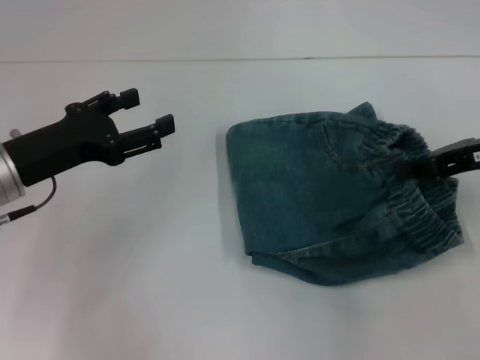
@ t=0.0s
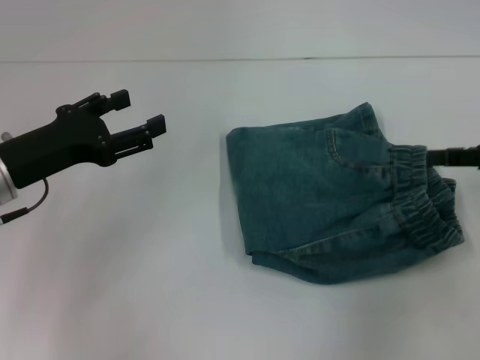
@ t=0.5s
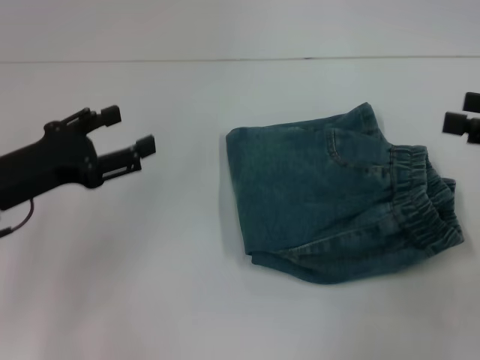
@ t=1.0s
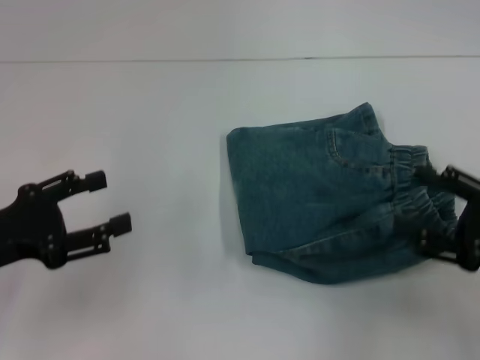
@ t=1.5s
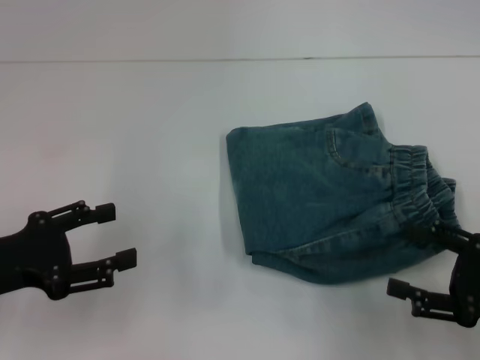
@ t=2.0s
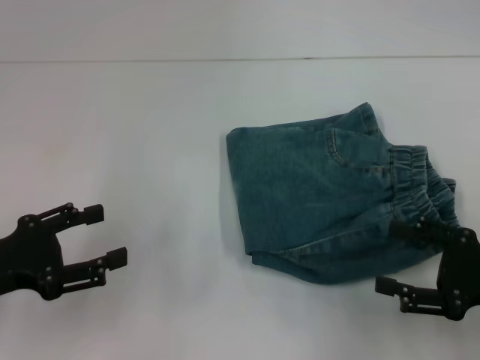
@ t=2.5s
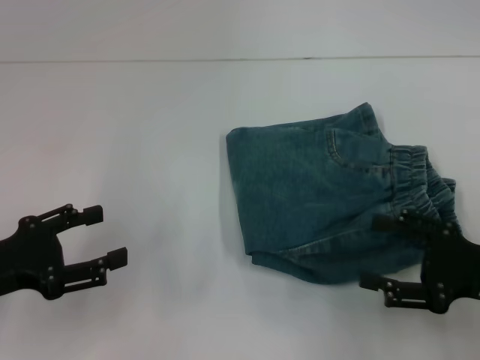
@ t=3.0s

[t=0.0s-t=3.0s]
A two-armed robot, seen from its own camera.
t=0.0s to t=1.5s: The right gripper shifts some 15 cm backward and downward, and opens its fingers, while the left gripper travels backward by about 5 cm.
t=1.5s to t=3.0s: The grippers stay close to where they were, moving slightly.

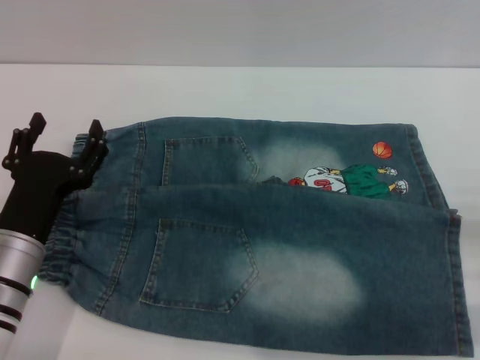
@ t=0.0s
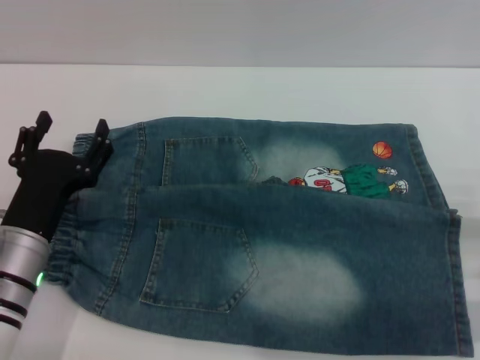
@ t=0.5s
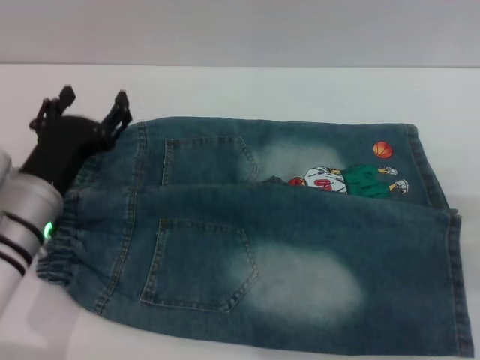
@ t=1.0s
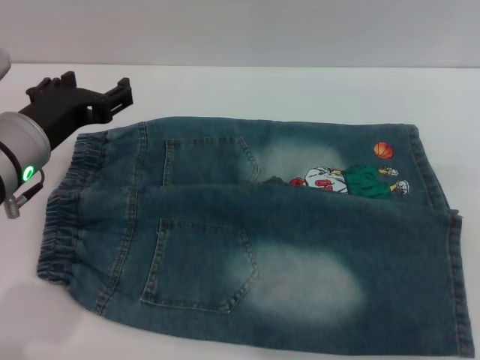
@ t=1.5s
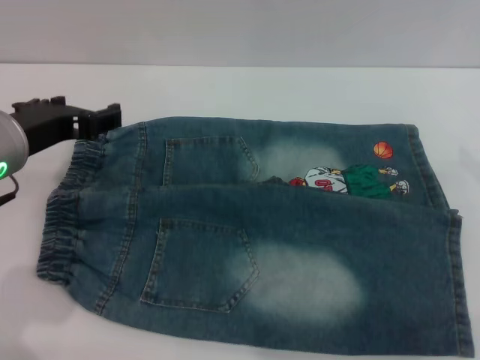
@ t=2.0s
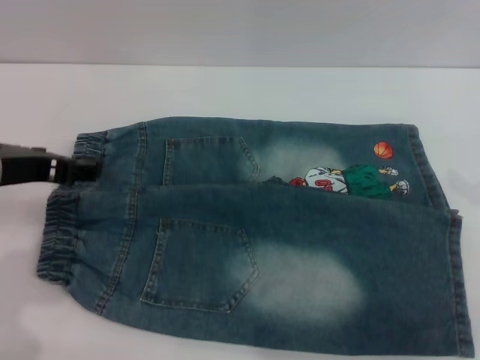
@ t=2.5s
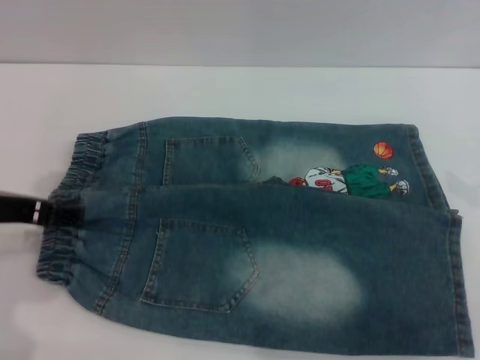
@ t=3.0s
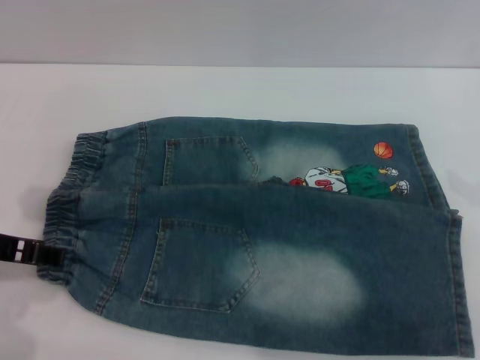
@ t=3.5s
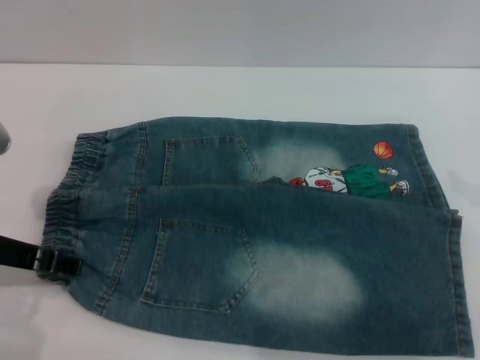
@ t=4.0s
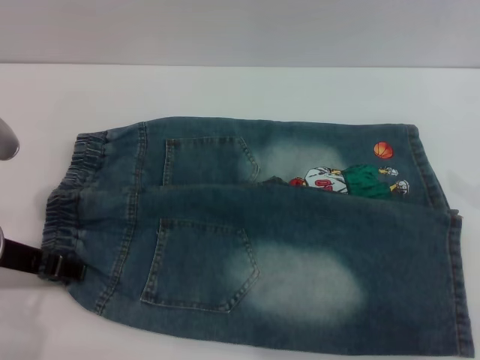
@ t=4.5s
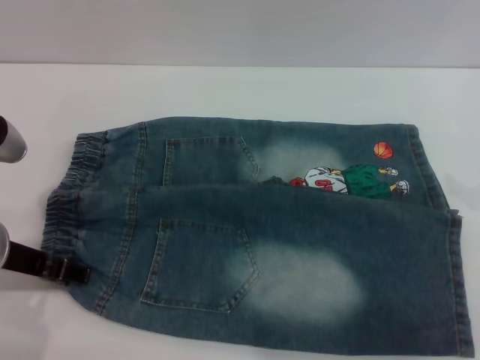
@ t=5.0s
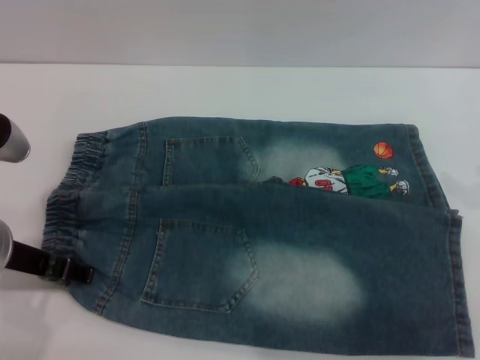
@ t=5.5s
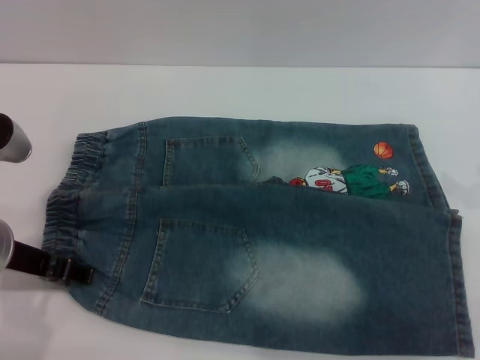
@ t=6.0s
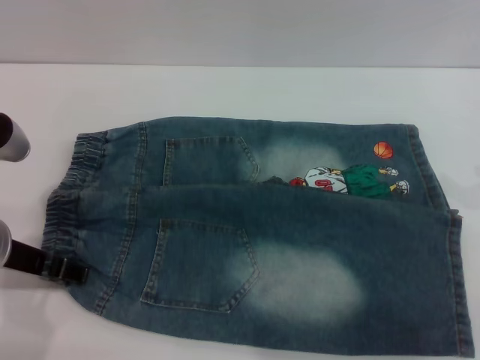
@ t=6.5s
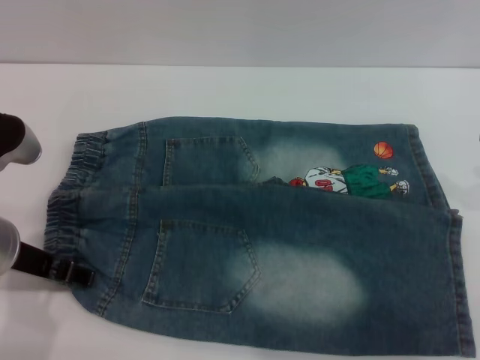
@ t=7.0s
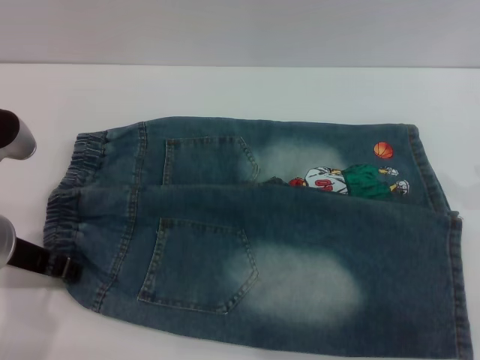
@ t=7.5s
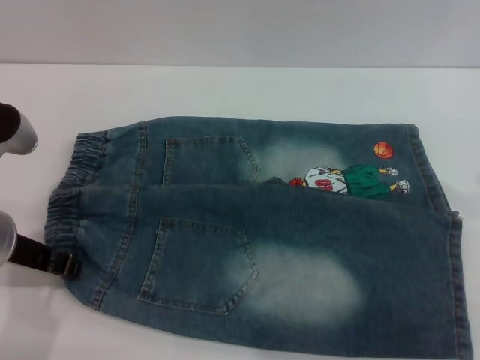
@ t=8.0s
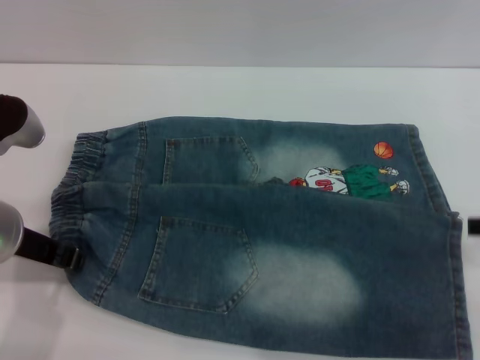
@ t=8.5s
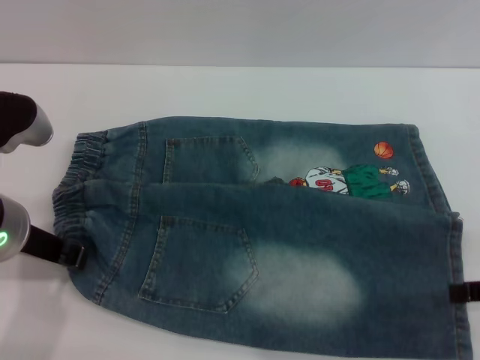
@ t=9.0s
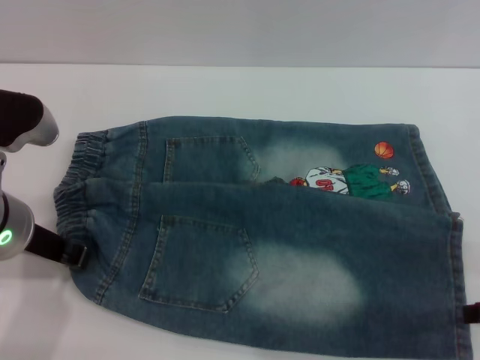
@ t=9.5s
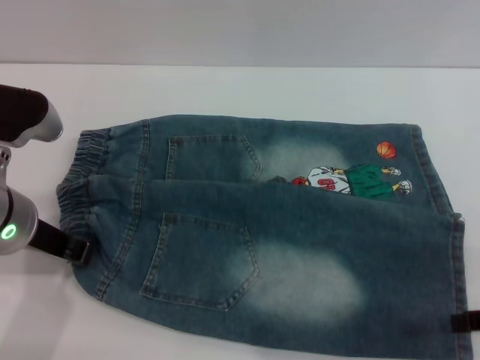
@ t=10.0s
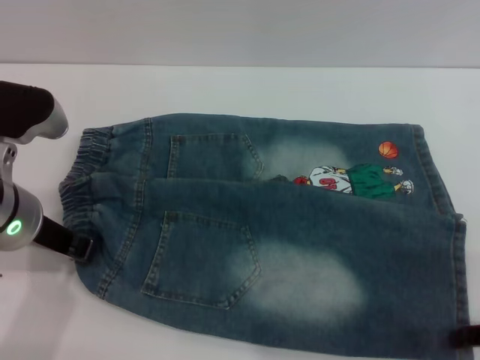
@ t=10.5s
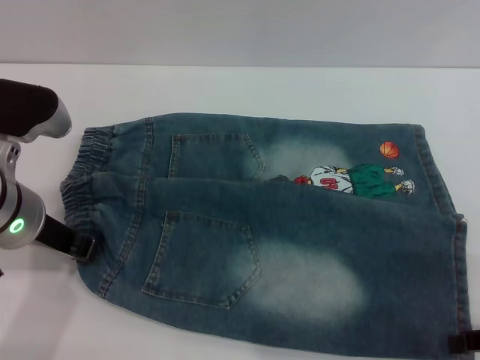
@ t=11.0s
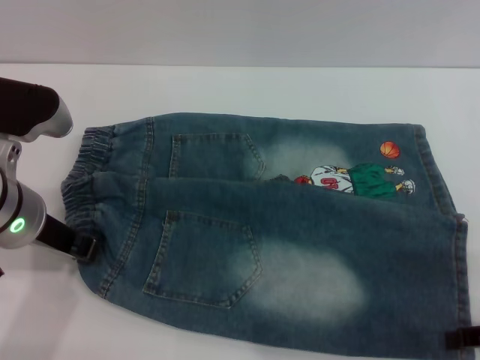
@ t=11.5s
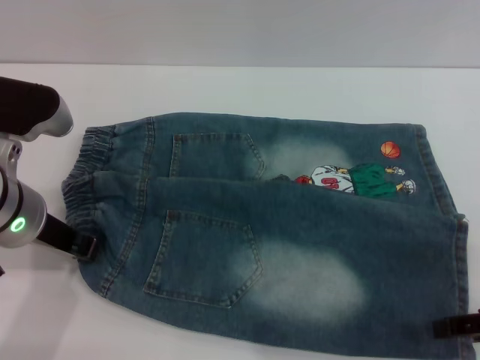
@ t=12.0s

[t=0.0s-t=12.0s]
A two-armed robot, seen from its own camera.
t=0.0s to t=2.0s: The left gripper moves upward, roughly 15 cm.
t=4.0s to t=6.0s: Both grippers stay put.
t=6.0s to t=8.0s: The left gripper closes.
t=8.0s to t=10.0s: The right gripper heads downward and backward, covering roughly 10 cm.
t=10.0s to t=12.0s: There are only small adjustments of the grippers.

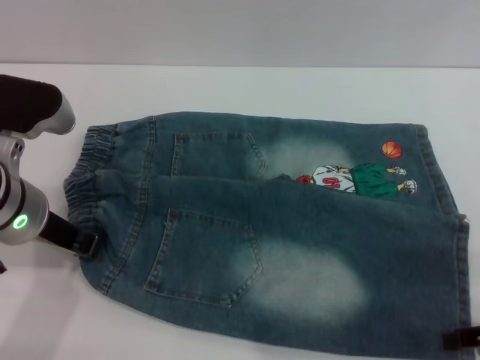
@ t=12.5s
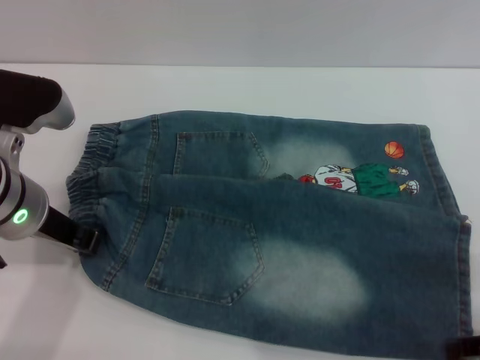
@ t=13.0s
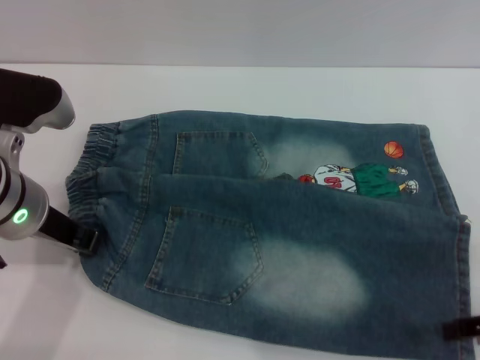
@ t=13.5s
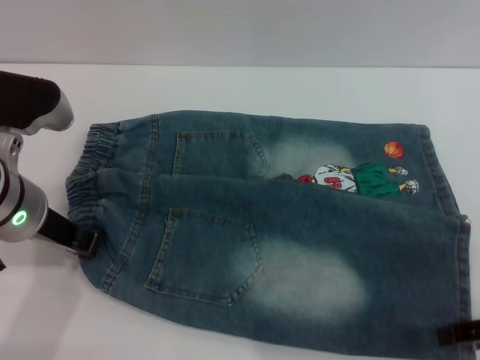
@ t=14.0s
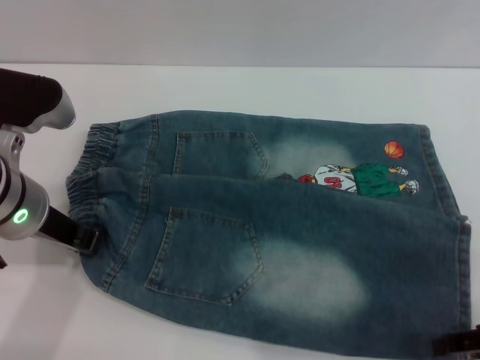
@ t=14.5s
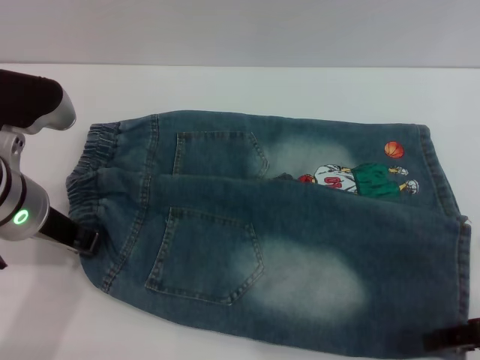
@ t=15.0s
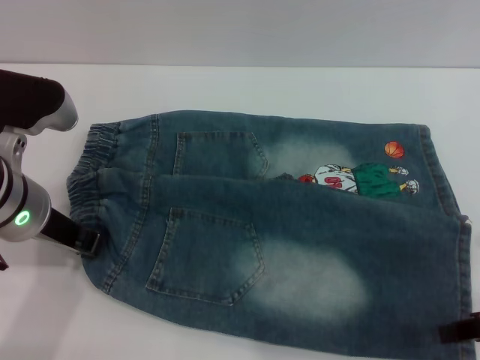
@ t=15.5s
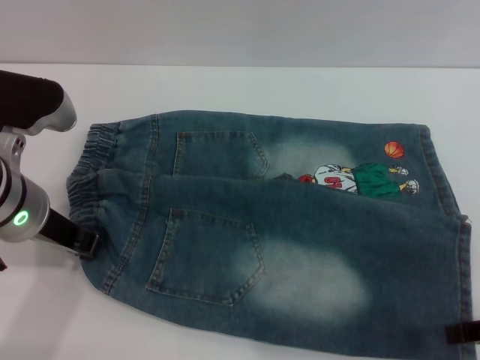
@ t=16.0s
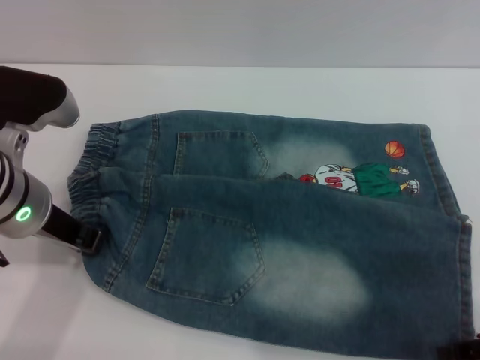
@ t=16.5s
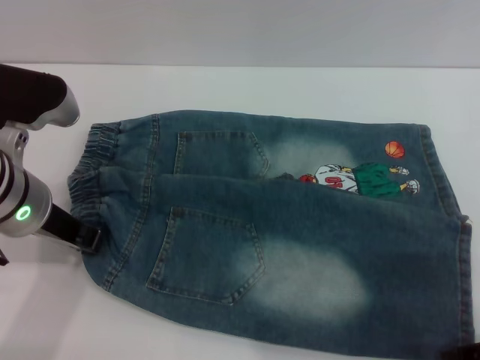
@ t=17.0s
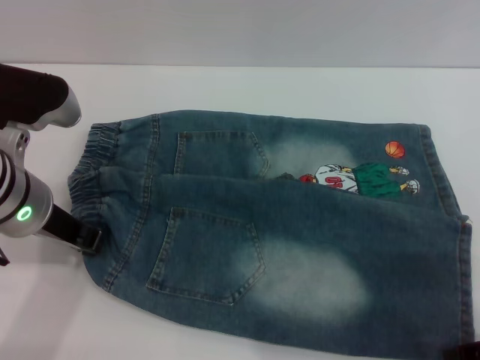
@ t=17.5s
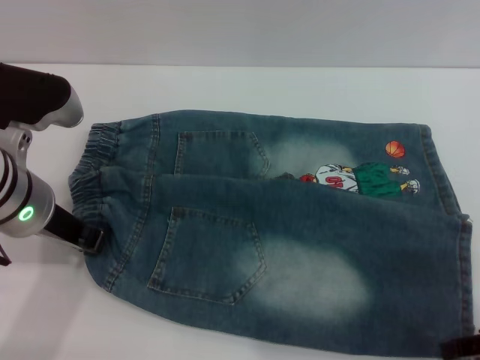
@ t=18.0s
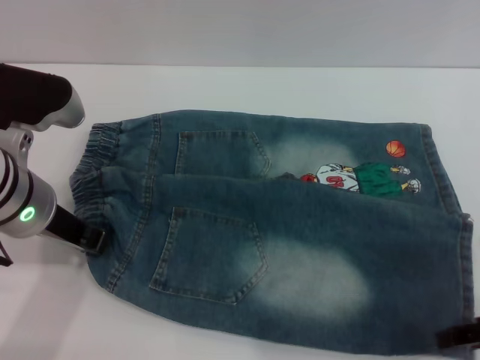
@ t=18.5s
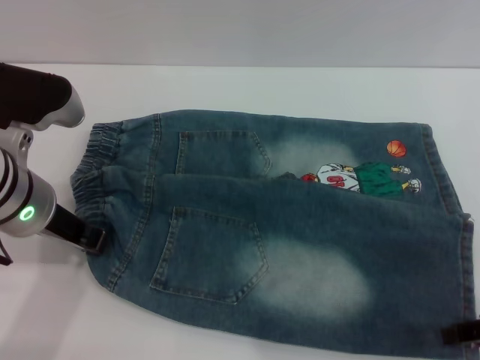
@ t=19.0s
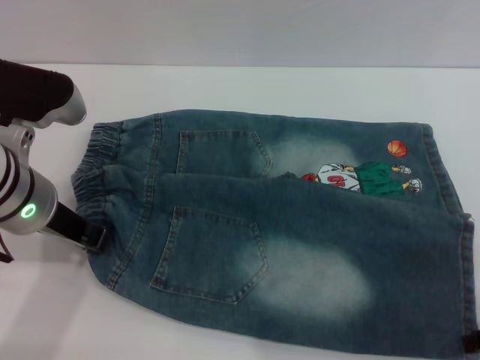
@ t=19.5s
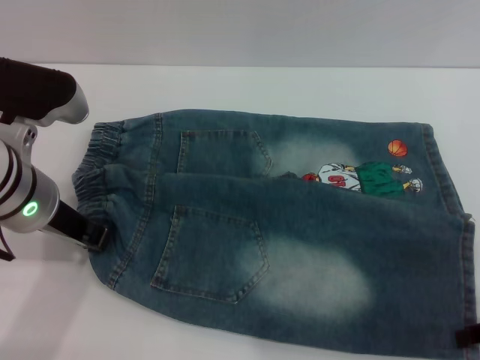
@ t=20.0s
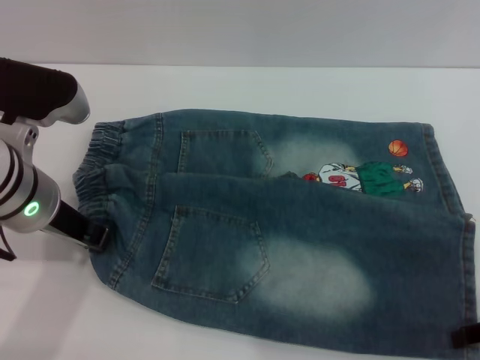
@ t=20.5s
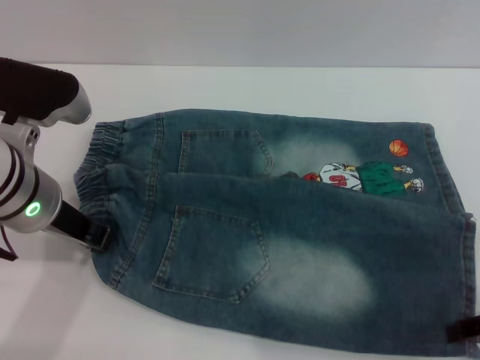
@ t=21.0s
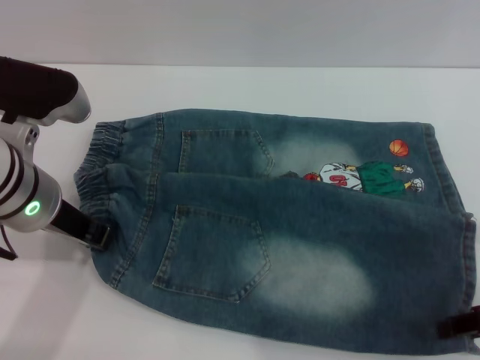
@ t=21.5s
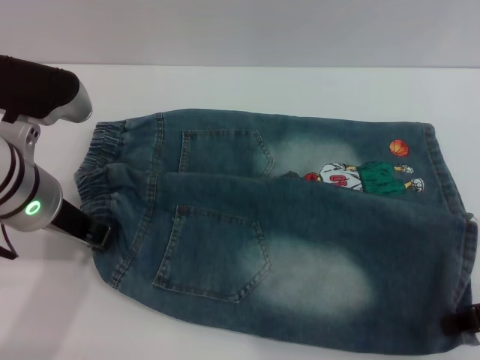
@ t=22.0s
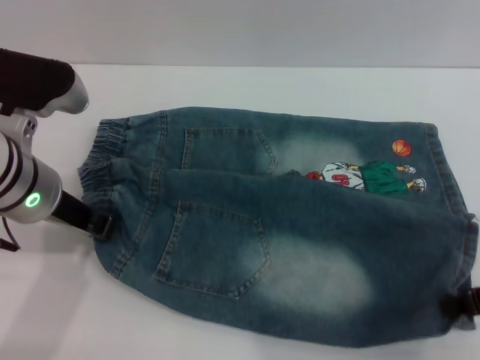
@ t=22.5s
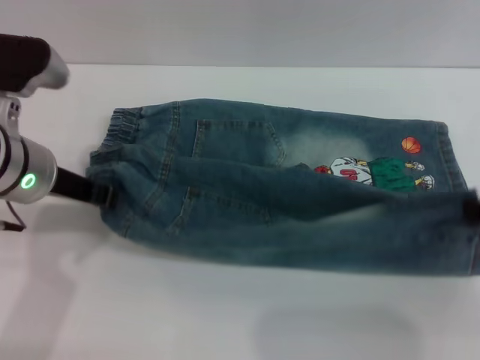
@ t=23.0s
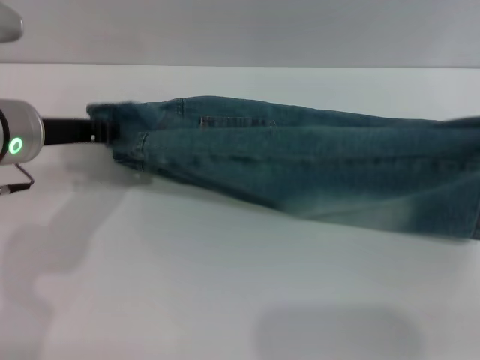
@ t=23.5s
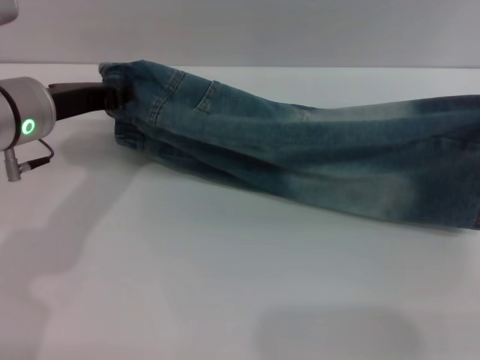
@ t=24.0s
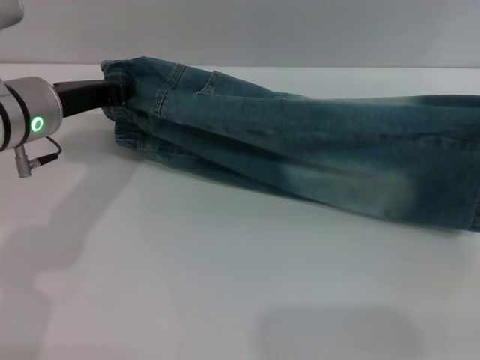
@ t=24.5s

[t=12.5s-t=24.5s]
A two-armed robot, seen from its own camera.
t=12.5s to t=16.5s: The grippers stay close to where they were, moving slightly.
t=16.5s to t=18.5s: Both grippers stay put.
t=18.5s to t=20.5s: The grippers make only small movements.
t=20.5s to t=22.5s: The right gripper closes.
t=22.5s to t=24.5s: The right gripper moves about 5 cm.
